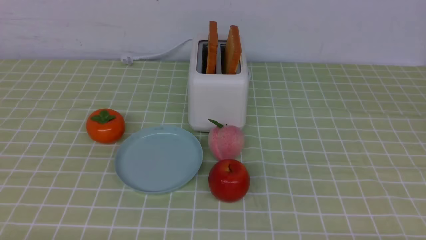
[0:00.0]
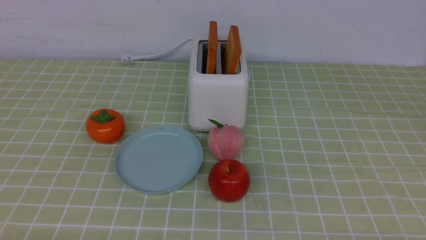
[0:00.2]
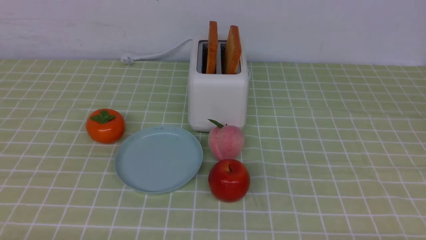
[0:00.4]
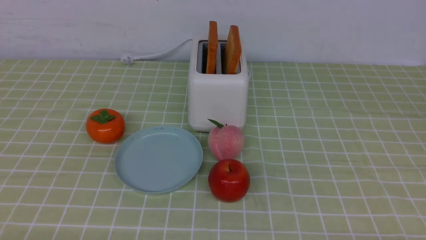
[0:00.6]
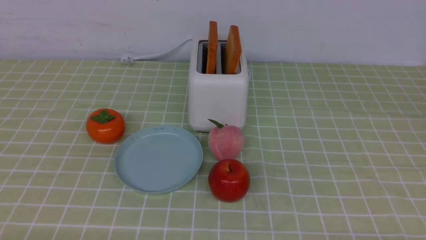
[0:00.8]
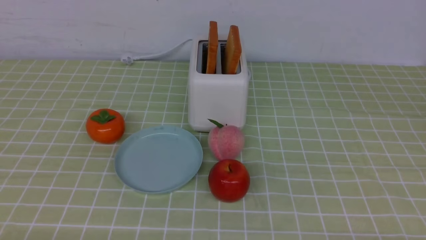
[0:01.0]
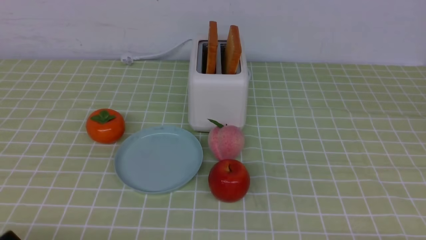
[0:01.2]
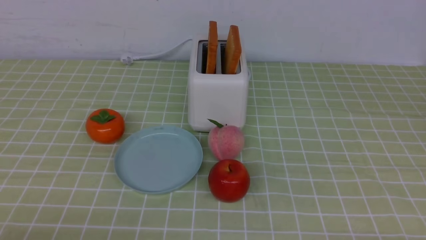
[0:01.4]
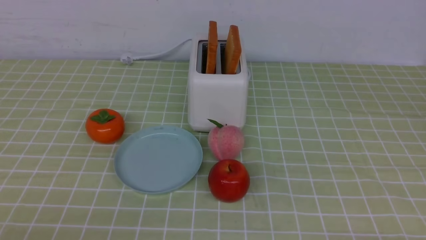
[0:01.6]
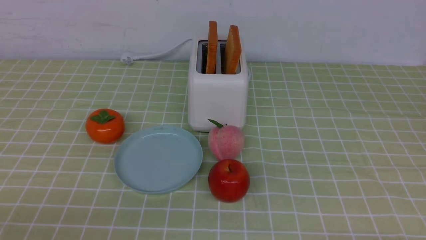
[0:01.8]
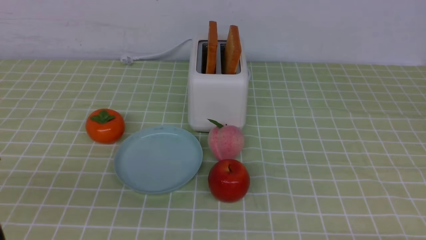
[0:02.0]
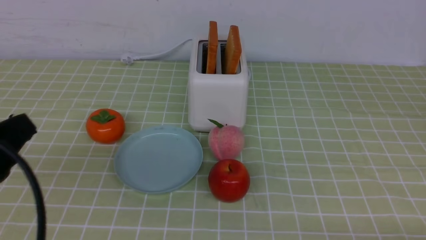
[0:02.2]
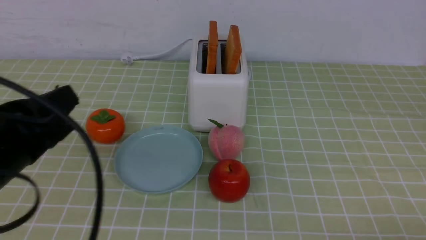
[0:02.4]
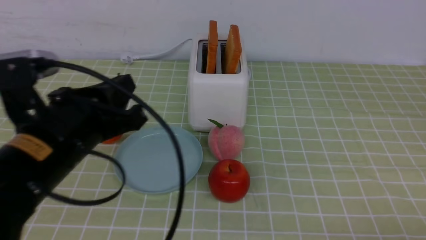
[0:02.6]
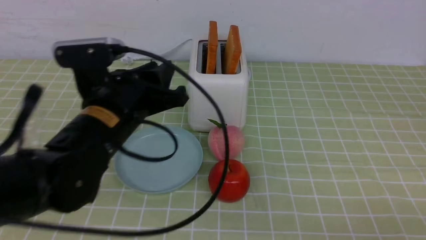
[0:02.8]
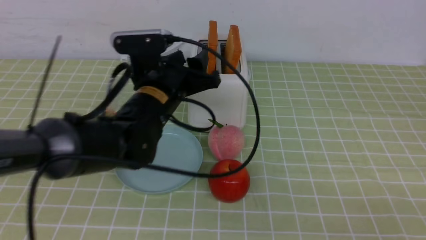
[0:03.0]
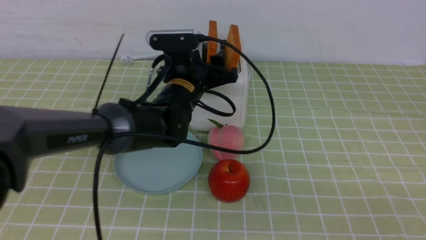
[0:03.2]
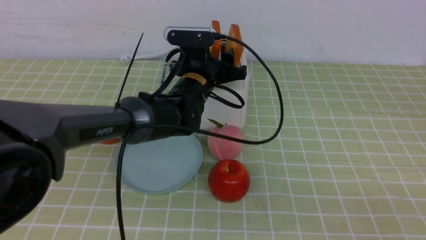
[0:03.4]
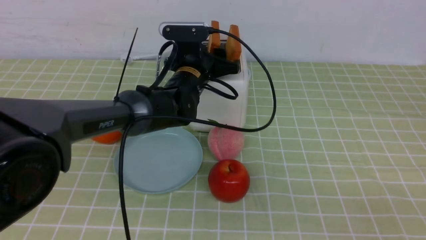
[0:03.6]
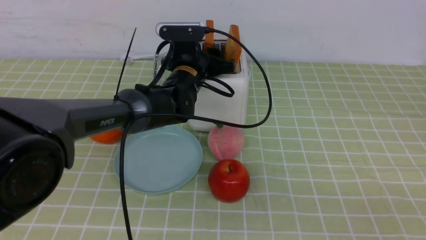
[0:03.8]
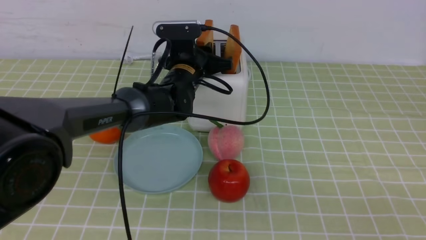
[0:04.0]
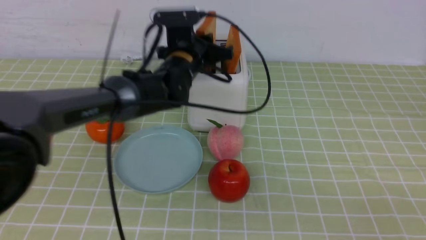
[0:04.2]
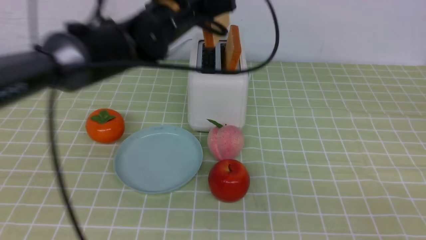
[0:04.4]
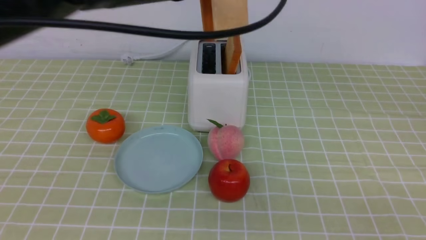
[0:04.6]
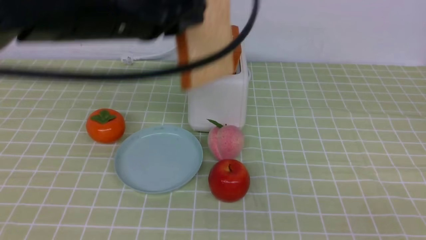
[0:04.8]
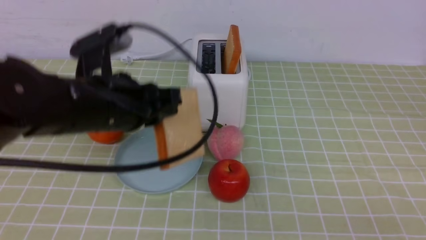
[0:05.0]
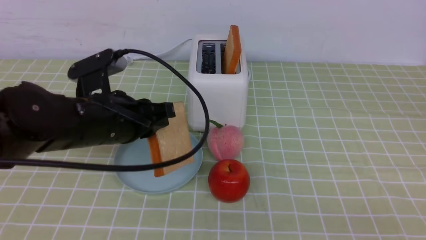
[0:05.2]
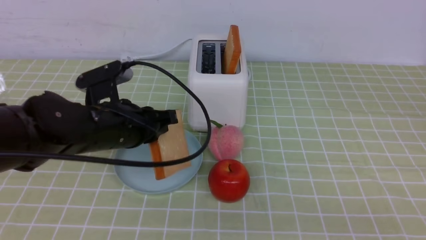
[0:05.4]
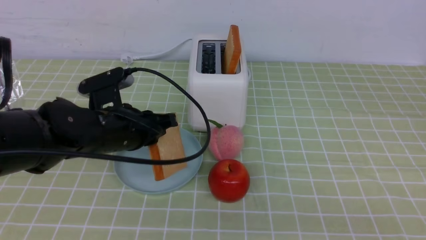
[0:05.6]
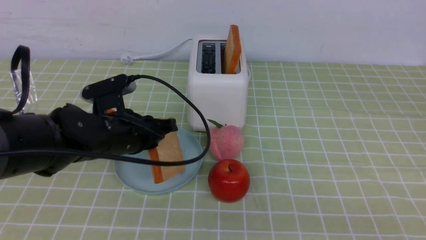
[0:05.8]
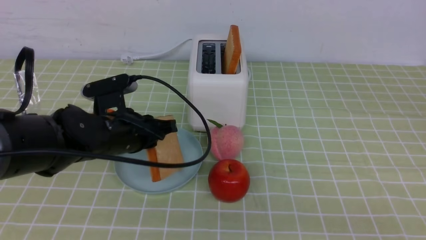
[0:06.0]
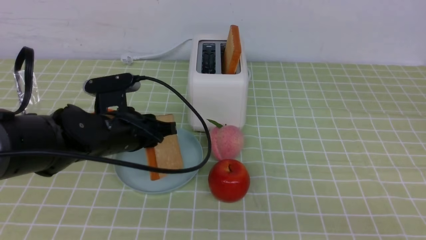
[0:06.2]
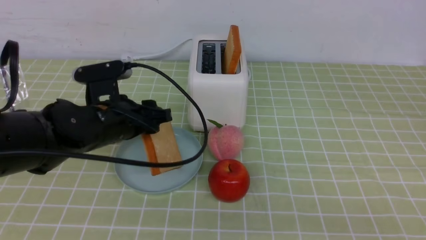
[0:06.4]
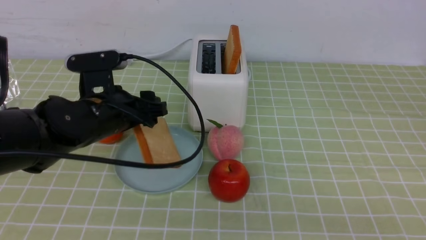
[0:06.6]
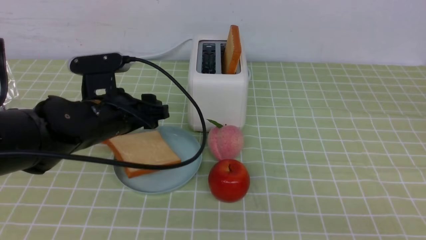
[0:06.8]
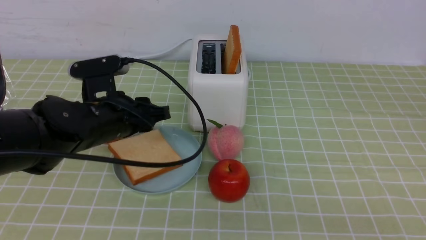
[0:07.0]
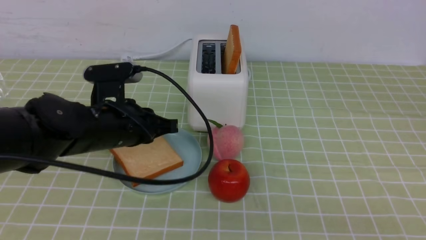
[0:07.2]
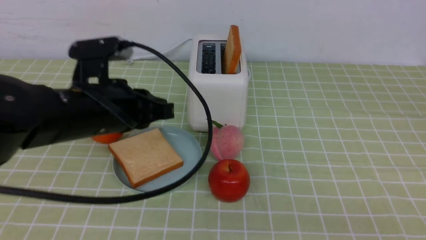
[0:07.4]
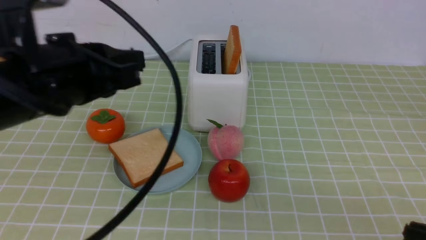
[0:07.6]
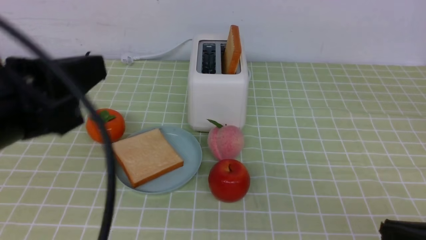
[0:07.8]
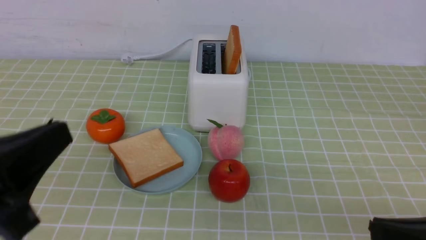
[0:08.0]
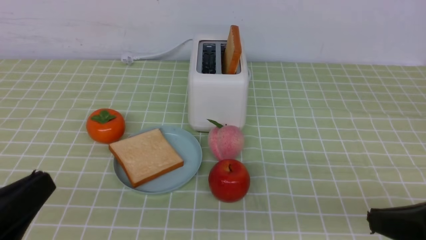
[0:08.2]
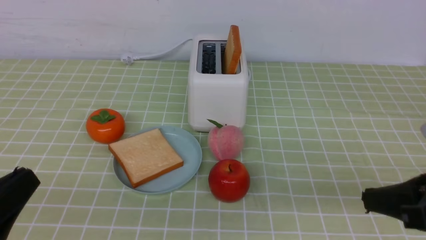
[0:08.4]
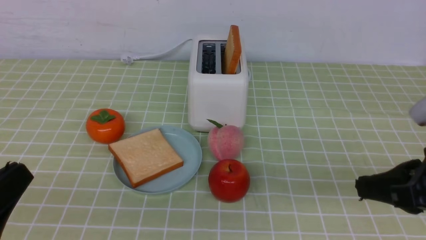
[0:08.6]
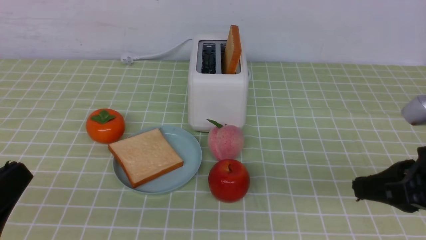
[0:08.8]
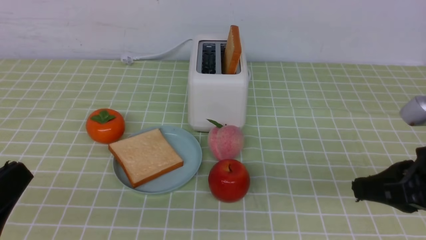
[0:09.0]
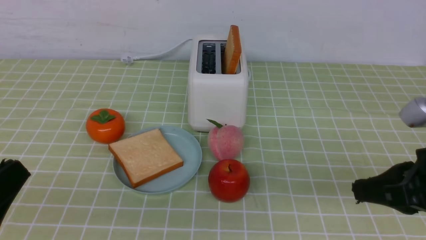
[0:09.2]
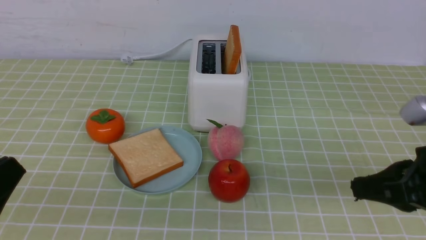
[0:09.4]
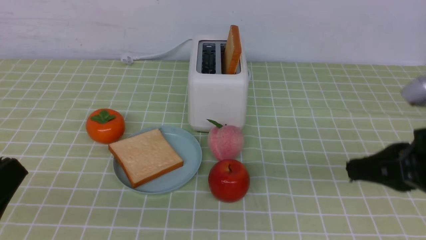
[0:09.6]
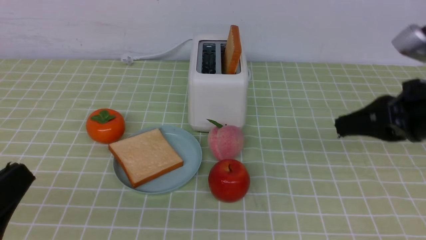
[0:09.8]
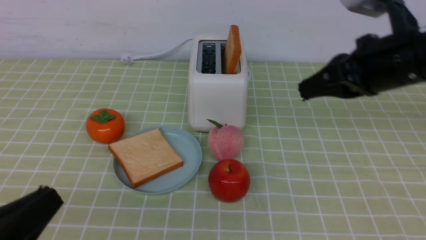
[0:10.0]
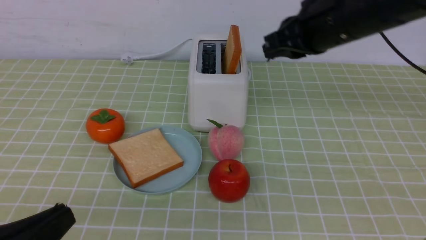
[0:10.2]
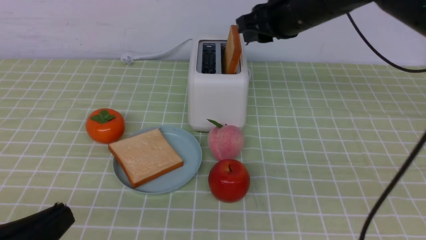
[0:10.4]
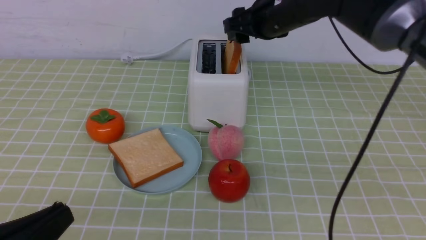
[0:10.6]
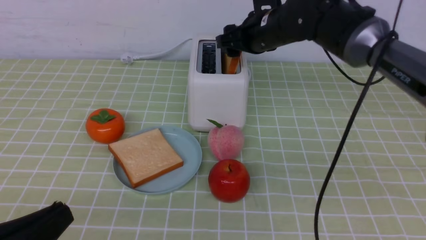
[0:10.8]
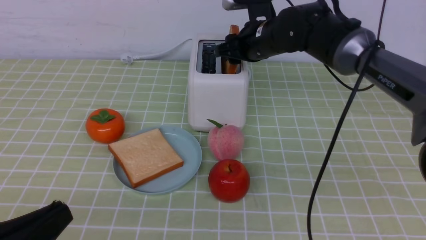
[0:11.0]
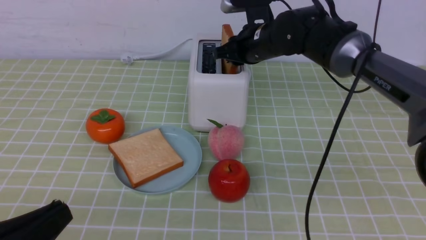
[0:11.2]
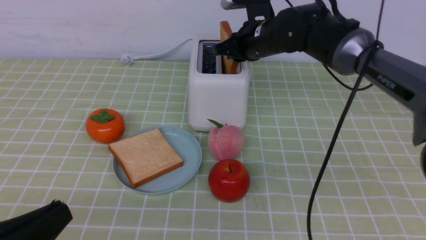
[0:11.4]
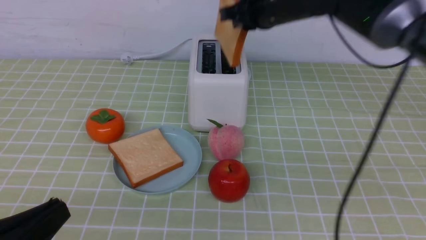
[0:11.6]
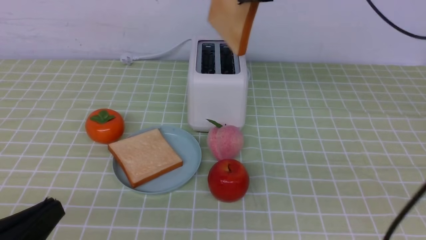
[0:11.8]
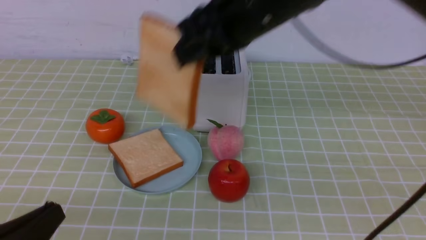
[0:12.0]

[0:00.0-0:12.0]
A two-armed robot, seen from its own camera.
Task of the whole recording: take toasted bread from bread machine on green coffee tablecloth place on plate.
Step, 0:00.0 to 0:04.4: use the left arm to take out a slice of bread.
Step, 0:04.8 to 0:06.8: use the left arm to put a slice of bread into the empty plate.
Step, 0:07.2 to 0:11.6: use the right arm to take out a slice of bread.
0:01.6 to 0:03.0: The right gripper shifts roughly 10 cm upward, and closes up. Meanwhile the left gripper goes some 35 cm forward and to the right, and opens its fingers.
0:03.0 to 0:04.4: The left gripper shifts about 10 cm upward, and closes up.
0:04.4 to 0:06.0: The left gripper travels downward, to the left and backward by about 20 cm.
0:06.0 to 0:07.6: The left gripper moves upward and backward, approximately 20 cm, and closes.
0:07.6 to 0:09.0: The right gripper moves forward, about 15 cm; the left gripper moves backward, downward and to the left, some 15 cm.
0:09.0 to 0:10.4: The right gripper heads forward and to the left, covering some 25 cm, and opens up.
0:10.4 to 0:12.0: The right gripper travels backward and to the left by some 10 cm, and closes.

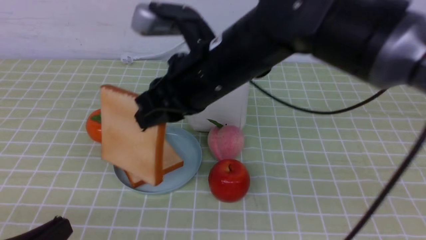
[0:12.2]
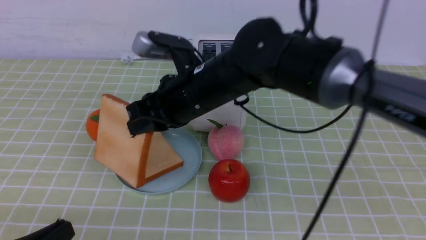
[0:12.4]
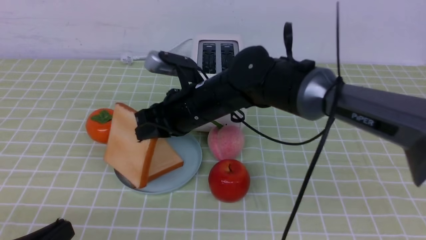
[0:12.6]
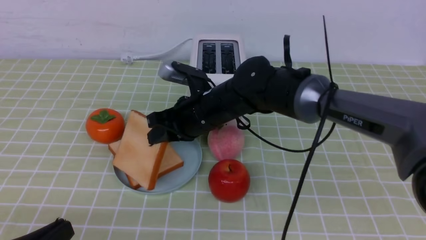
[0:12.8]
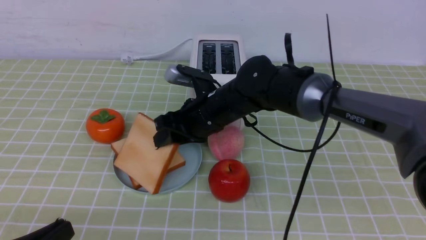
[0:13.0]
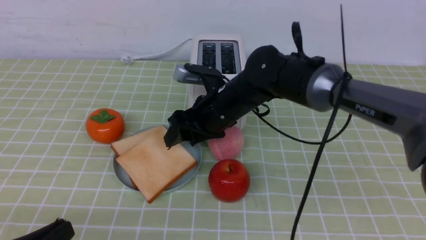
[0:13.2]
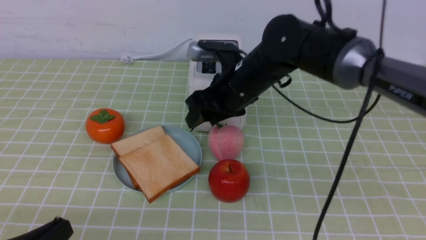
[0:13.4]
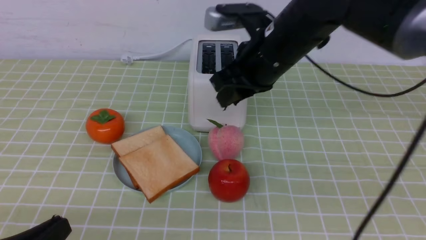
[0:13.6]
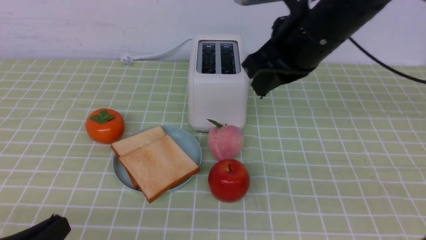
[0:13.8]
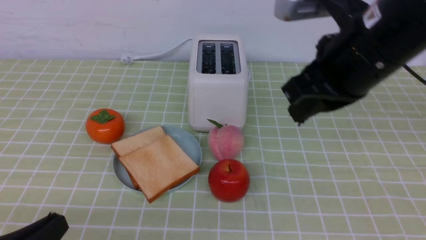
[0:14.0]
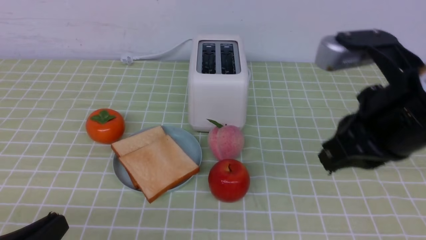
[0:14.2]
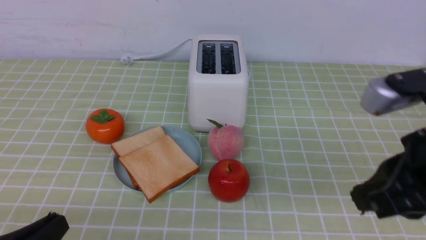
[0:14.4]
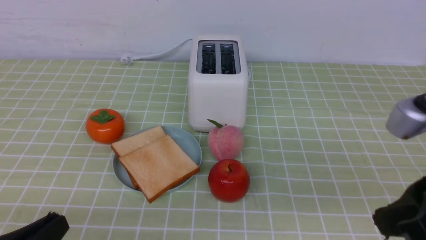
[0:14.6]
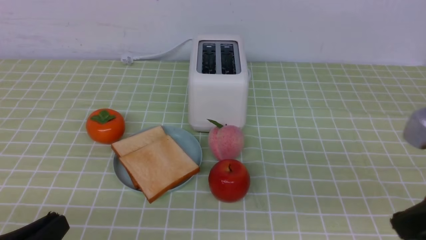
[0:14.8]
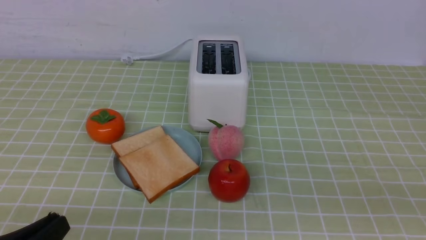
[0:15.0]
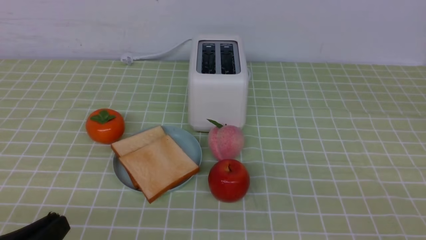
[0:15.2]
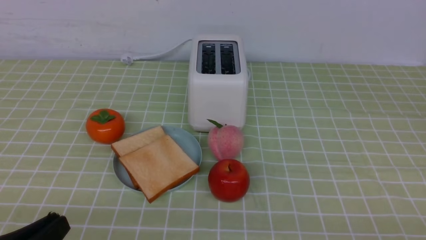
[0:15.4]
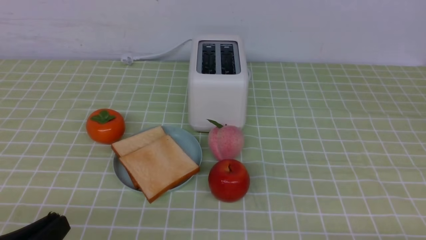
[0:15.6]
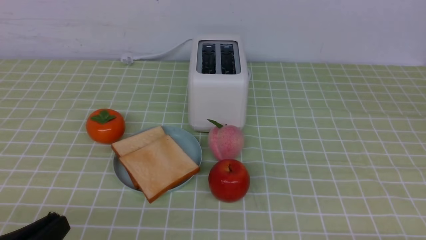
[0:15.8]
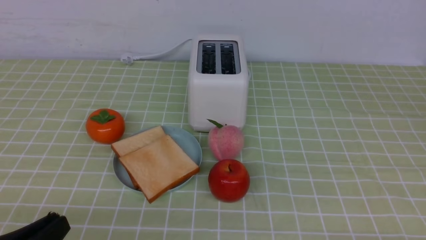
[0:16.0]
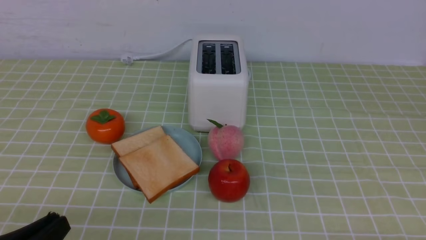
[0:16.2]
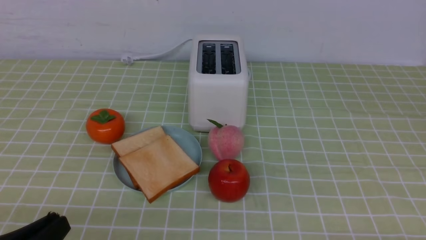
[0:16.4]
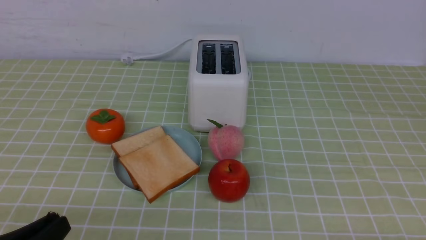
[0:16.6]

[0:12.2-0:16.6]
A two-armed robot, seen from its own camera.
Task of the whole recording: take toasted bread from bread machine on green coffee tablecloth place on plate.
Step, 0:12.2 to 0:13.4: use the right arm to put a slice of bread into the plate.
0:12.2 to 0:13.6: The right gripper shifts approximately 10 cm to the right, reaches approximately 10 cm downward, then returns, and opens, then closes again.
0:13.6 to 0:15.2: The right gripper shifts about 35 cm backward and to the right, and closes its fingers.
